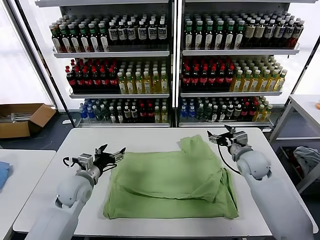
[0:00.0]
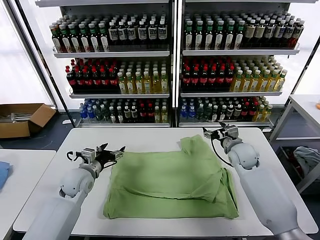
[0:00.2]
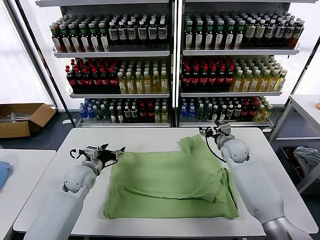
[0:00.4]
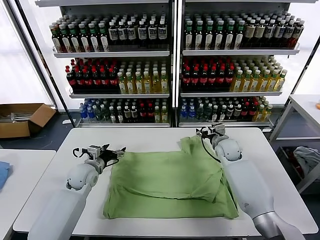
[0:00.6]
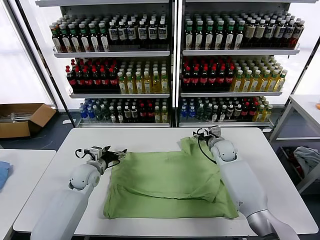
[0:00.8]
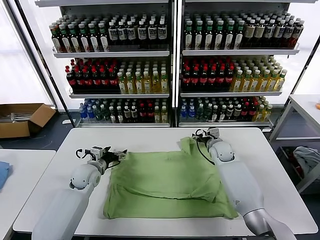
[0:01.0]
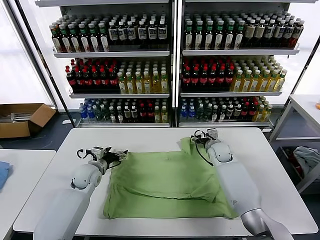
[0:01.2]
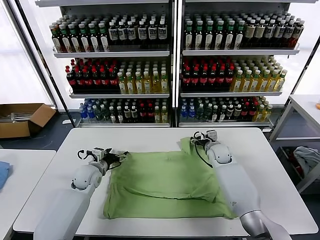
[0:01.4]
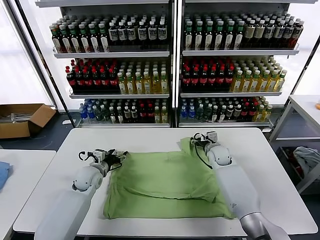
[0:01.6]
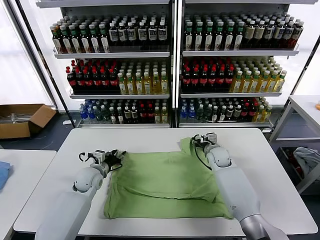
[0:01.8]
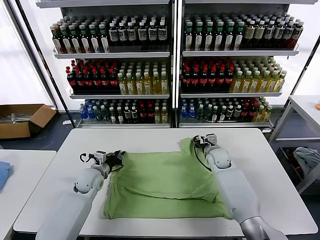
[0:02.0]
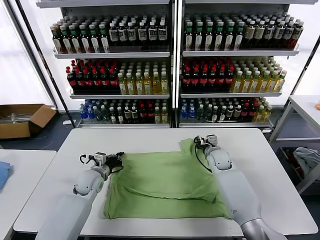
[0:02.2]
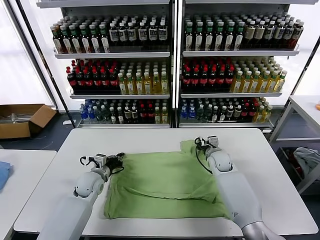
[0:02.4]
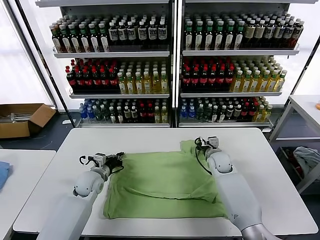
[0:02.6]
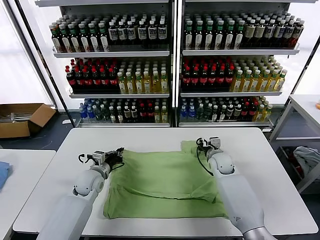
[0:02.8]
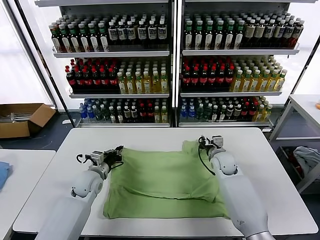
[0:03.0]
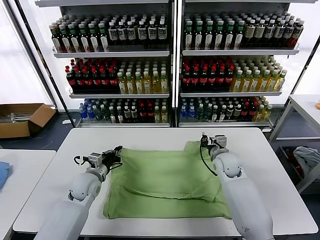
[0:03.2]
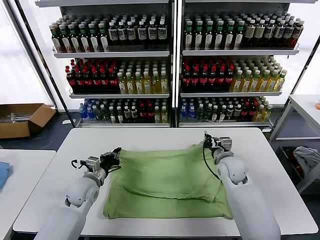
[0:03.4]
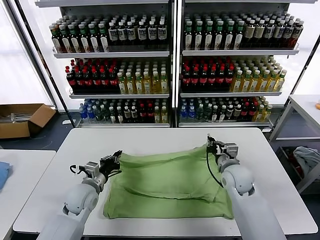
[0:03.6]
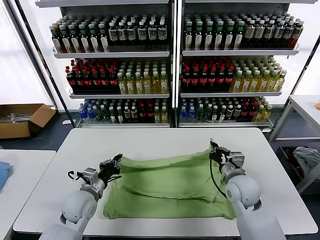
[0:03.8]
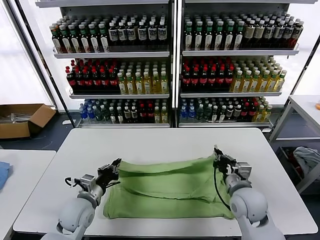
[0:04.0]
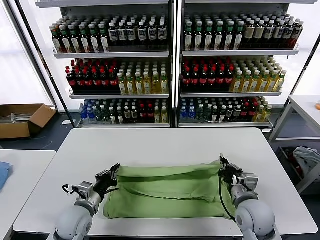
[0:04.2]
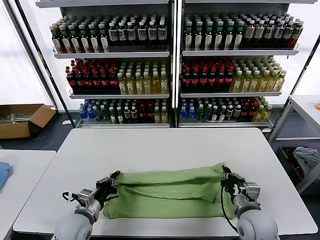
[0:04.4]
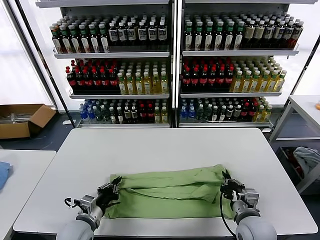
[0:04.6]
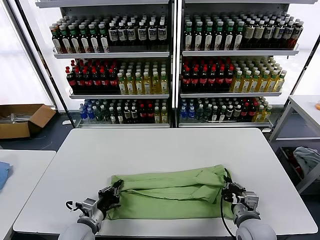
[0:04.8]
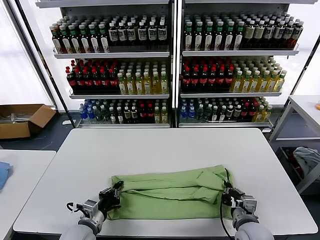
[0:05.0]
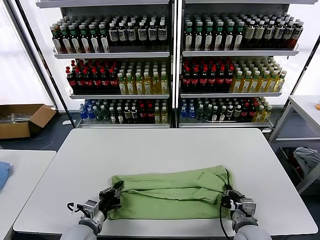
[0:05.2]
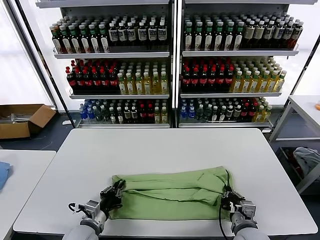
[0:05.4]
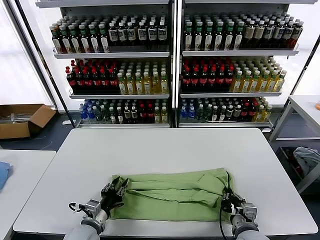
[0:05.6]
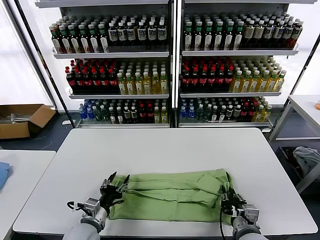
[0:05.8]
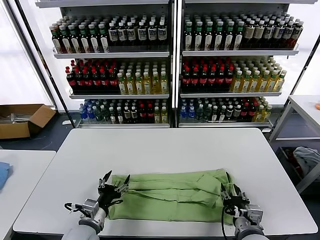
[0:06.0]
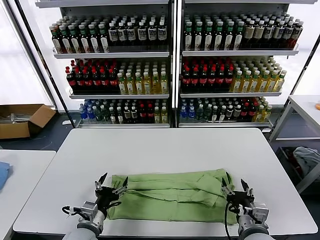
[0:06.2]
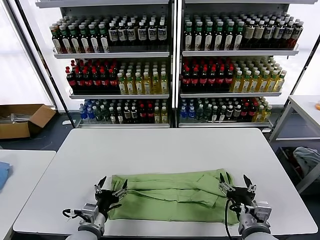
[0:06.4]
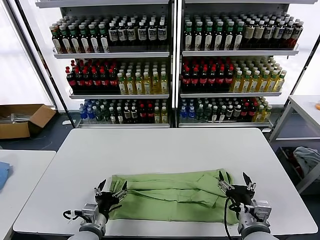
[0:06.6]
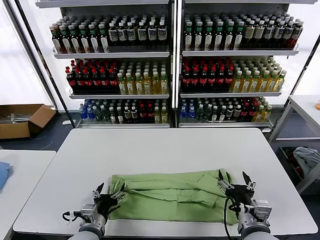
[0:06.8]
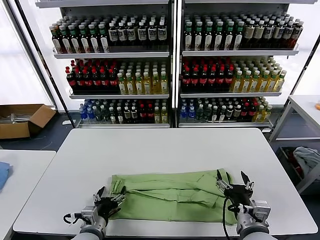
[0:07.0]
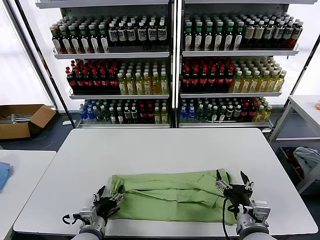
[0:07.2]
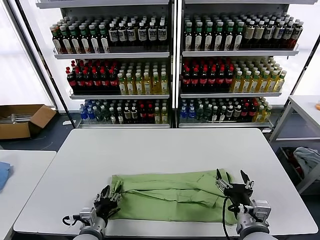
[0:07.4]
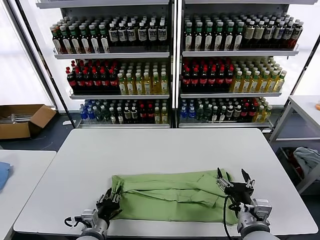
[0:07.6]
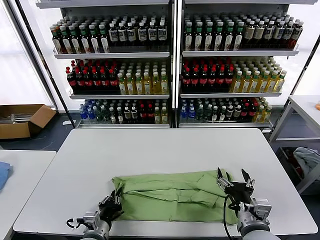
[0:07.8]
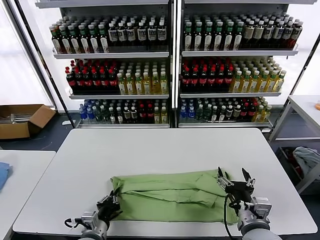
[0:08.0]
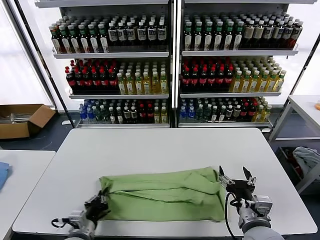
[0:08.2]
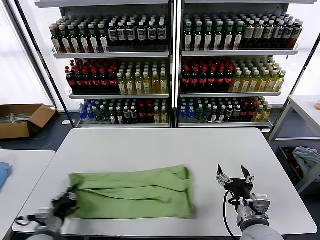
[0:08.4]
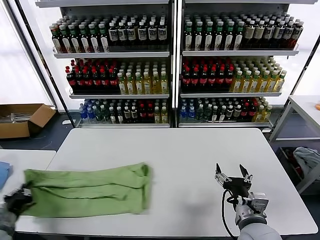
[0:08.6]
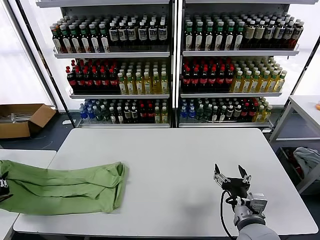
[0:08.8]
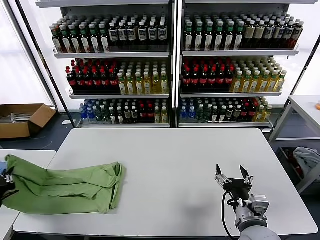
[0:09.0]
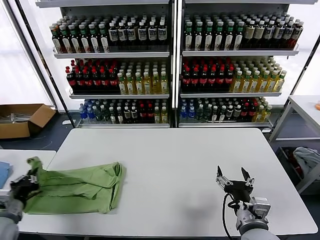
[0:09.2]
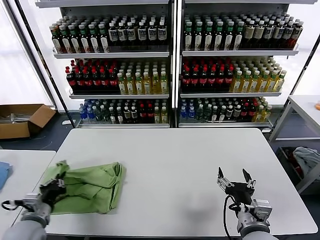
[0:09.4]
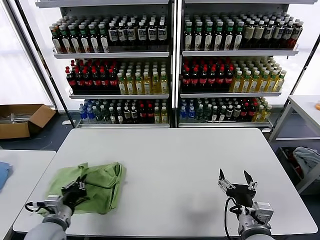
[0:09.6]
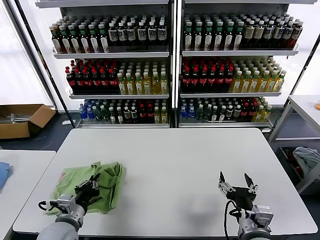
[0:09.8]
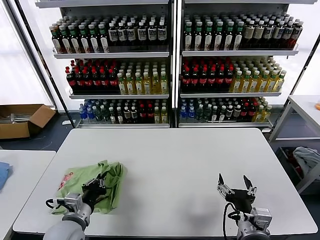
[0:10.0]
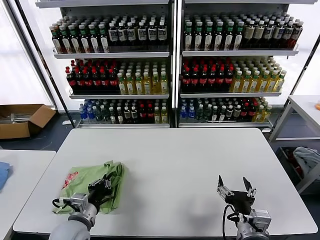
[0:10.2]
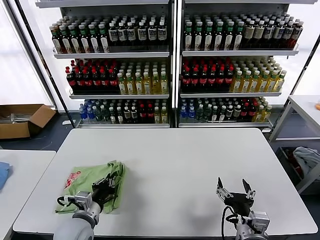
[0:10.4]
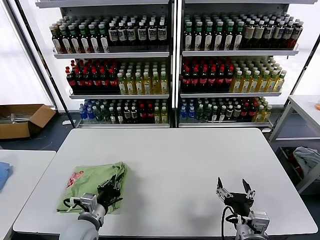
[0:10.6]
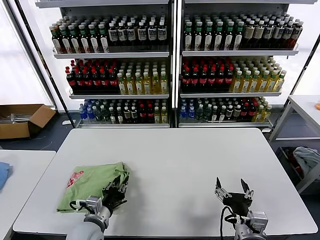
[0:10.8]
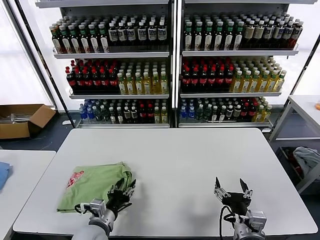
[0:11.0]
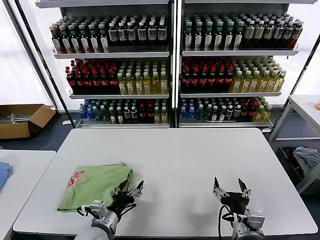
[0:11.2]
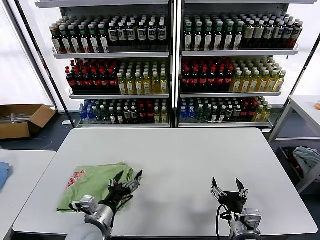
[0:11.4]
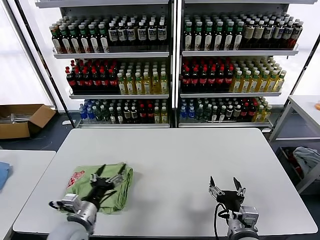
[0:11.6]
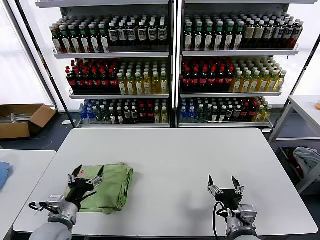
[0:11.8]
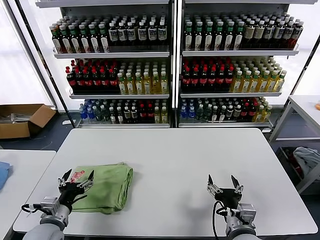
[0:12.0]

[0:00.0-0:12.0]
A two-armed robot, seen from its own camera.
Task of the whole recording: fold and organize the clothes.
Step, 0:00.0 to 0:02.4: use both grippers simultaneously to clamp the upper edge of the clothing fabric.
Step, 0:02.6 to 0:06.0: use both grippers to drag the upper edge of the fabric backward and fold it over the lower edge.
Step, 0:06.2 to 0:07.8: use the left gripper to clamp the left edge of the fabric.
Step, 0:08.0 to 0:11.2: use the left gripper to drag the left edge of the fabric to the left and folds it over the right edge.
0:00.0 to 0:01.6: The left gripper goes about 10 cm forward and downward, while the right gripper heads forward, downward and to the left, covering about 15 cm.
0:01.6 to 0:03.0: The right gripper ends up approximately 5 cm from where it was, and closes. Meanwhile the left gripper closes up.
0:03.0 to 0:04.4: The right gripper shifts roughly 25 cm backward, while the left gripper heads backward, covering roughly 15 cm.
0:04.4 to 0:06.0: The right gripper travels backward by approximately 5 cm, and opens. Meanwhile the left gripper opens up.
0:06.0 to 0:07.6: The right gripper is displaced upward by about 5 cm, and opens.
0:07.6 to 0:09.0: The left gripper is displaced to the left by roughly 30 cm, and closes its fingers.
0:09.0 to 0:10.4: The left gripper shifts roughly 25 cm to the right.
0:10.4 to 0:12.0: The left gripper moves to the left, some 10 cm, and opens up.

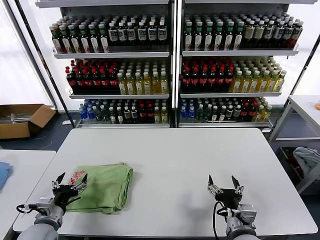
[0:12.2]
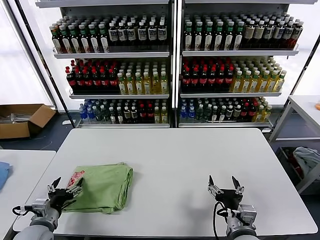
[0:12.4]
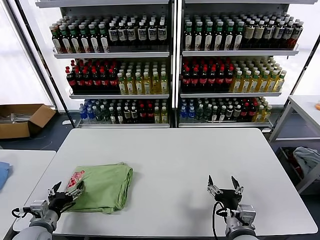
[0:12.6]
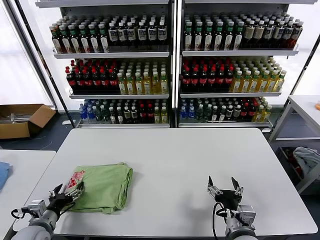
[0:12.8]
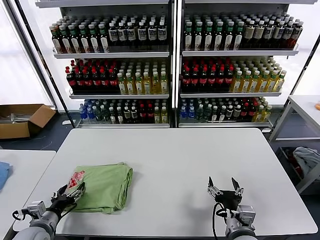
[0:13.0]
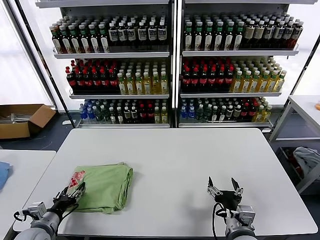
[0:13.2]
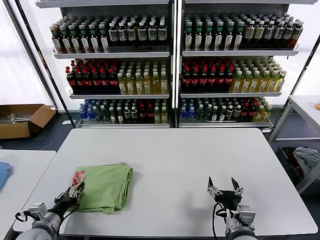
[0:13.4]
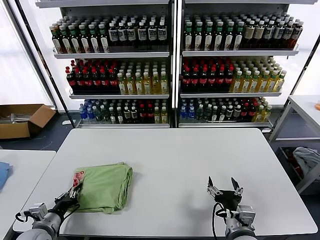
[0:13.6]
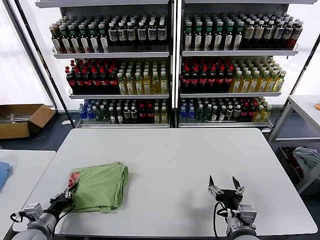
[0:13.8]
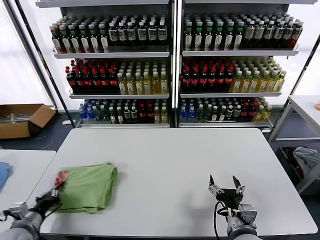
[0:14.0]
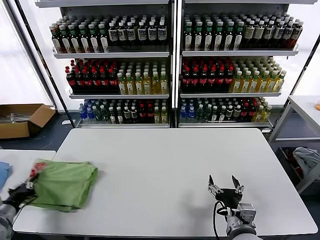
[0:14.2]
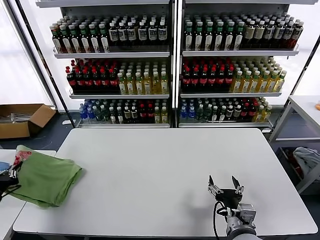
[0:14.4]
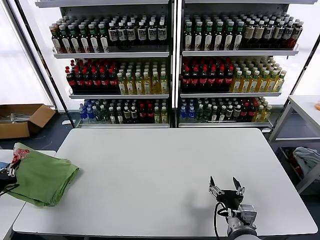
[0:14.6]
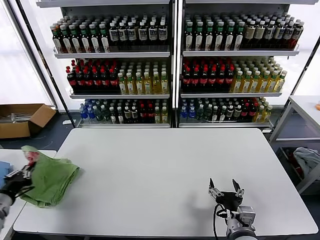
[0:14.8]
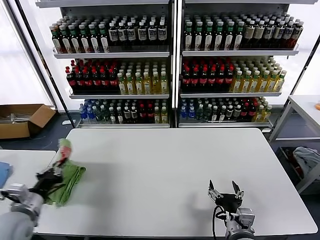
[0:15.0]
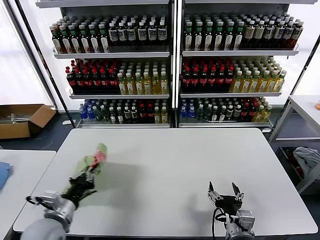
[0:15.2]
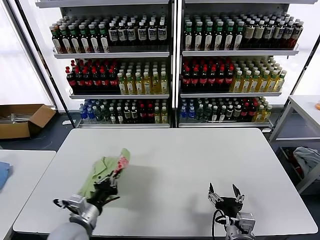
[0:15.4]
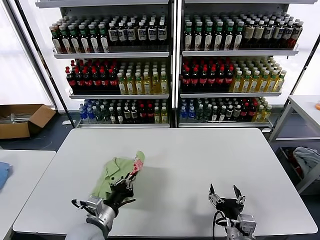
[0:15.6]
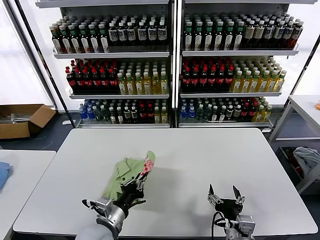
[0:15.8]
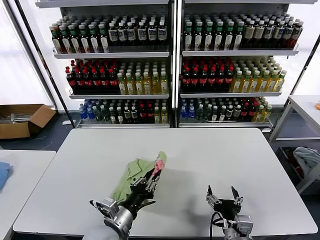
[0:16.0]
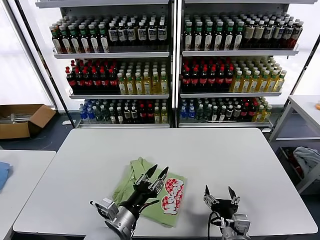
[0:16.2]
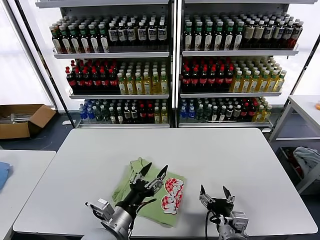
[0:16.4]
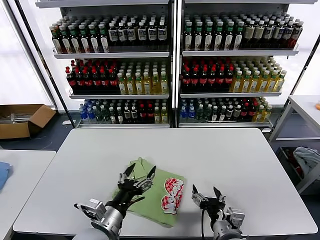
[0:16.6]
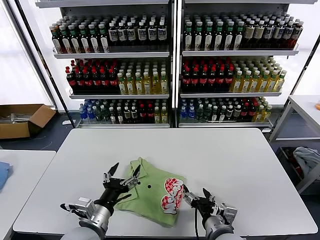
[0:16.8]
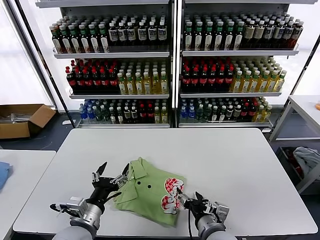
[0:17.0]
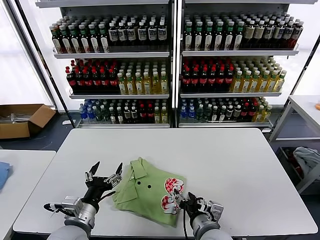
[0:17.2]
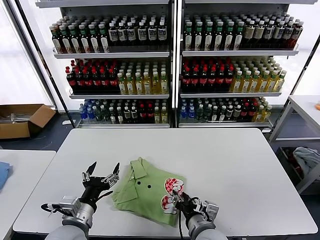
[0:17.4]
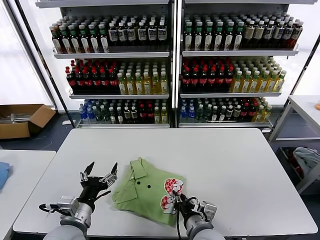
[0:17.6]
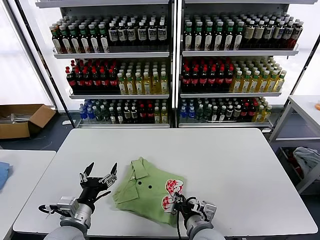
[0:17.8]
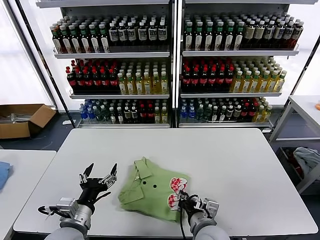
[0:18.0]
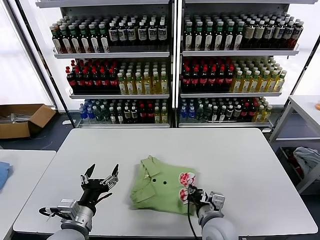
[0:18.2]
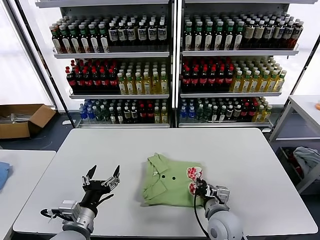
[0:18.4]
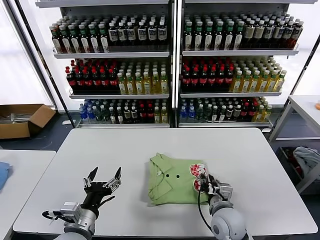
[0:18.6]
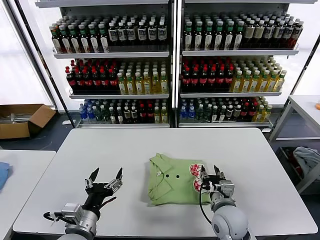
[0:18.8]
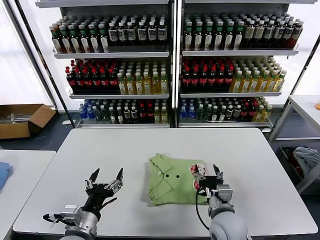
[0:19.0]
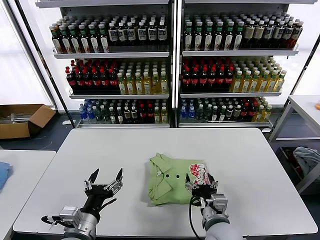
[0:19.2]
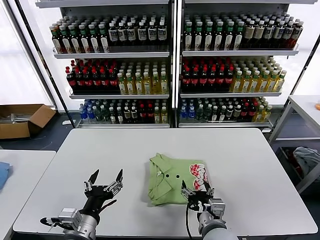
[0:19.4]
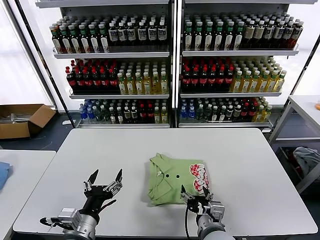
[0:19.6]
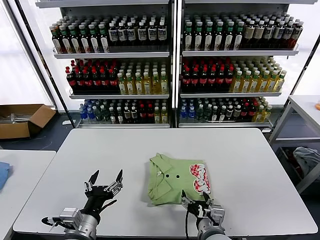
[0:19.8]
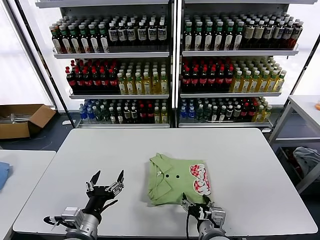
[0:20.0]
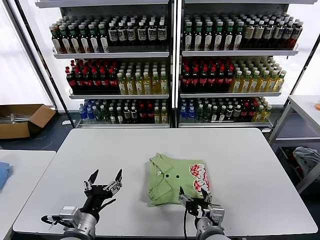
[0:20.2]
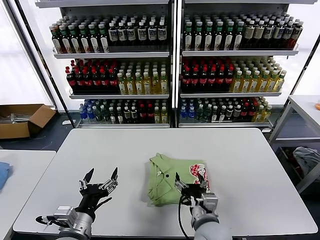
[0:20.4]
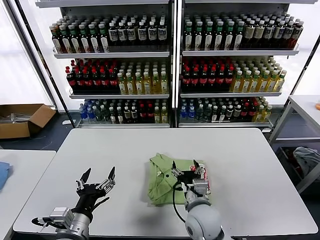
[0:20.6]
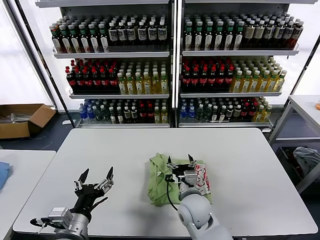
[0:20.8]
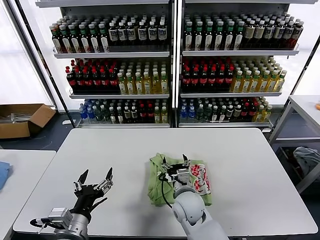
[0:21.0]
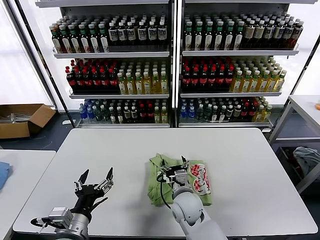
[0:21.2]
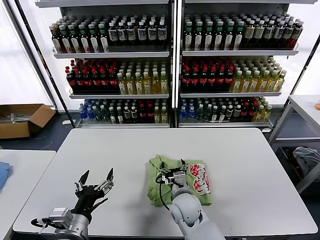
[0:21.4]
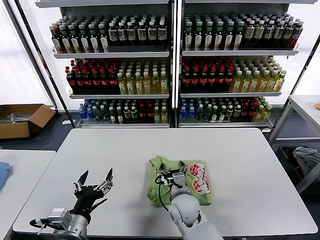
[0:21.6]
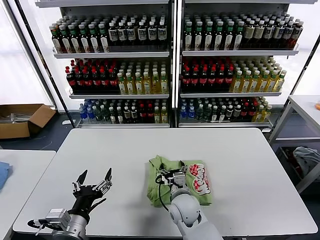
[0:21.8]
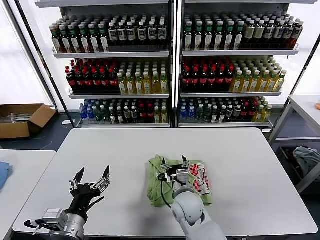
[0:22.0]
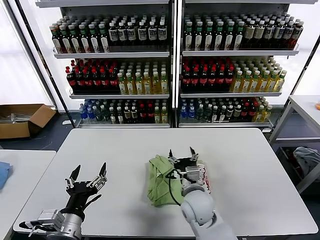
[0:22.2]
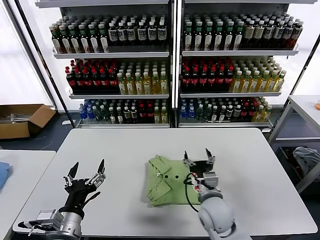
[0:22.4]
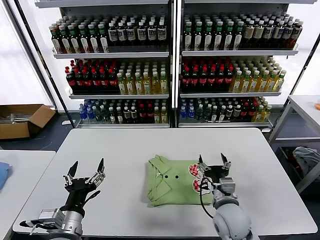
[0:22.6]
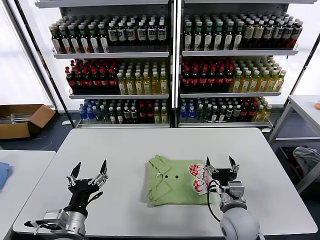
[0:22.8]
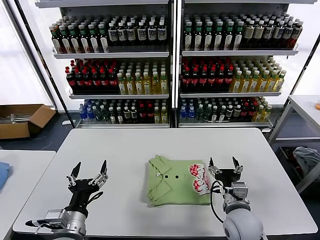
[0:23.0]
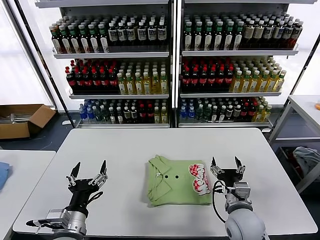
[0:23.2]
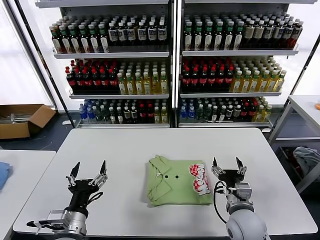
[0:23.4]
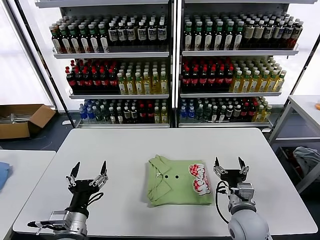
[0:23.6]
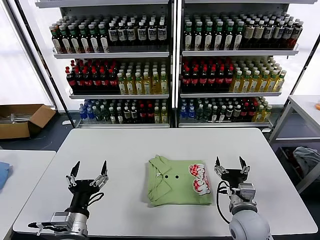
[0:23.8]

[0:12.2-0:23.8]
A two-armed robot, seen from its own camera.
Task of the whole recording: fold and organize the clothes.
Step, 0:12.2 to 0:16.2: Flip the folded clothes over with left gripper.
Step, 0:16.4 to 0:22.0: Drag the clothes to the center of the table.
0:12.2 to 0:13.6: The left gripper closes.
0:13.6 to 0:15.0: The left gripper heads upward, covering approximately 10 cm, and moves about 15 cm to the left and comes back.
0:15.0 to 0:16.6: The left gripper shifts some 25 cm to the right, and opens its fingers.
0:16.6 to 0:18.0: The two grippers go roughly 5 cm to the left. The right gripper closes.
0:18.0 to 0:19.4: The right gripper opens up.
0:19.4 to 0:21.0: The right gripper shifts some 15 cm forward and to the left.
0:21.0 to 0:22.4: The right gripper moves to the right, about 5 cm.
0:22.4 to 0:23.8: The right gripper heads to the right, covering roughly 10 cm.
